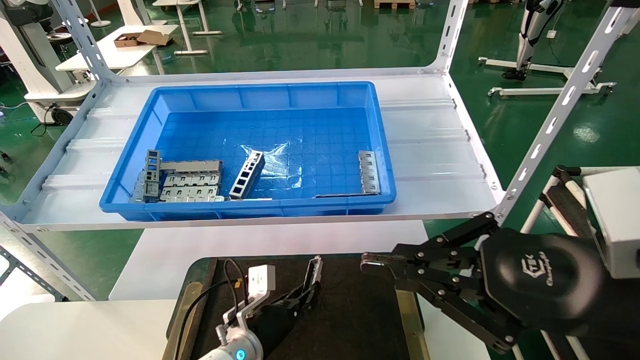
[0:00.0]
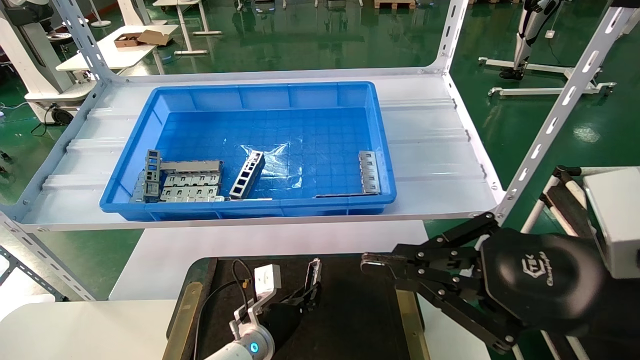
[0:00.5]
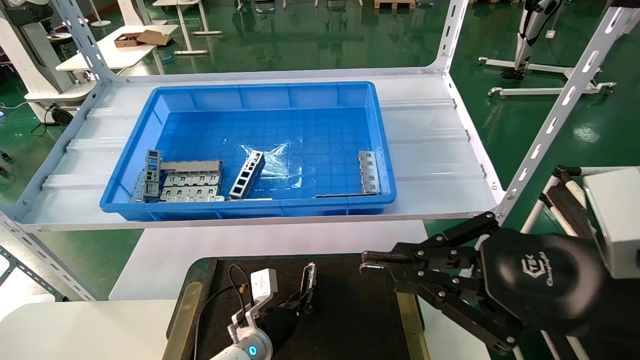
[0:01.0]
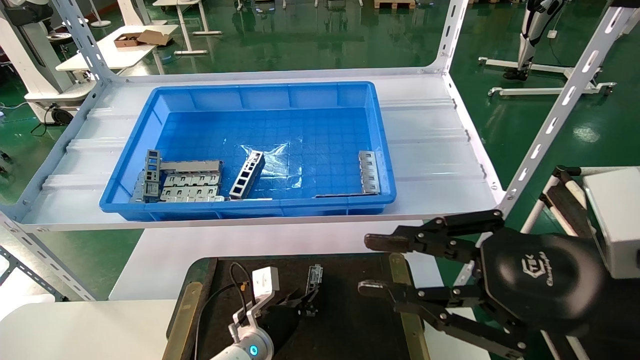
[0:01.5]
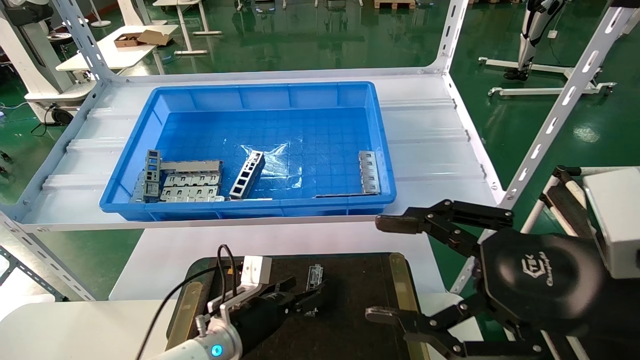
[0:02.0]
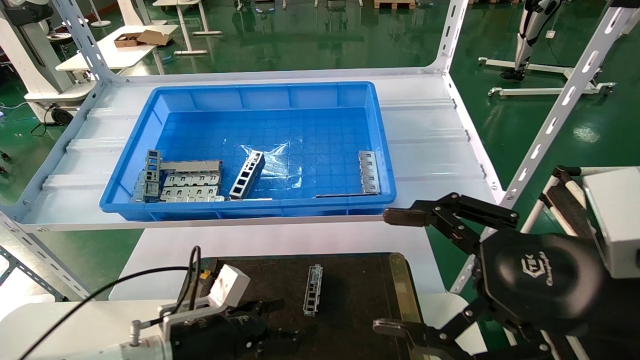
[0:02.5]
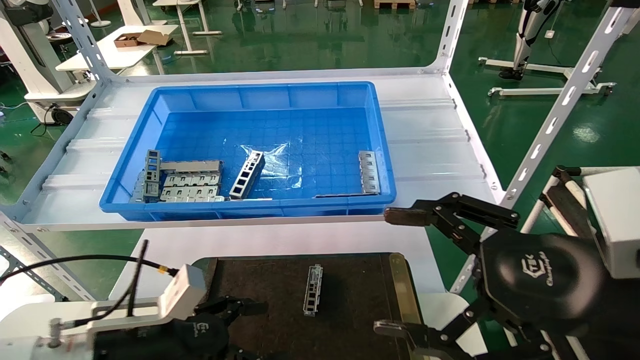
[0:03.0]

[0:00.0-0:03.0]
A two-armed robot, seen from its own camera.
Task of the whole recording: Grasp the part with one hand and place it on the black container.
0:00.0 to 0:01.5: The grippers stay close to where they were, moving slightly.
0:01.5 to 0:03.0: The left gripper moves backward, to the left and upward, about 25 cm, and opens up. Meanwhile the right gripper opens its fingers.
